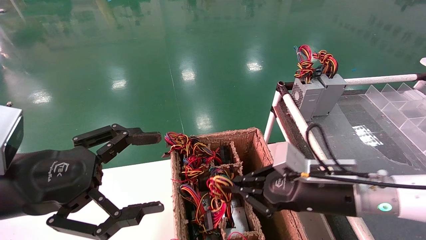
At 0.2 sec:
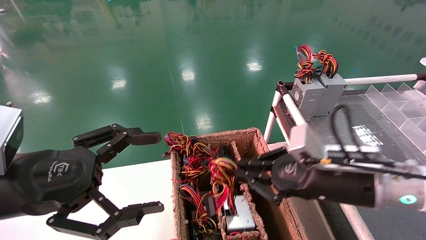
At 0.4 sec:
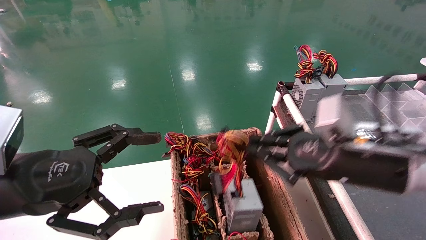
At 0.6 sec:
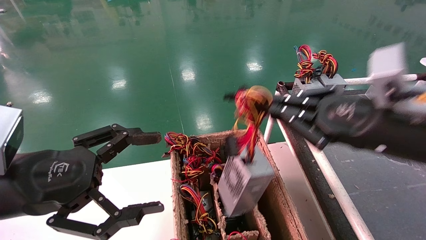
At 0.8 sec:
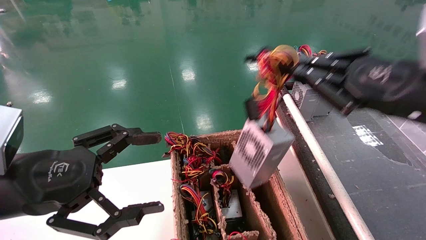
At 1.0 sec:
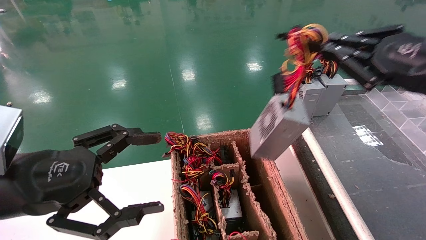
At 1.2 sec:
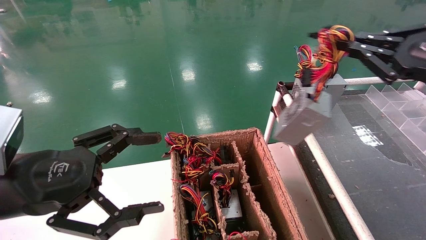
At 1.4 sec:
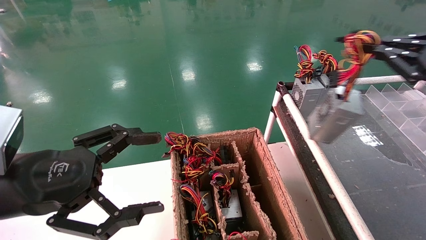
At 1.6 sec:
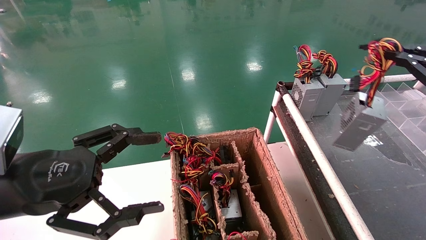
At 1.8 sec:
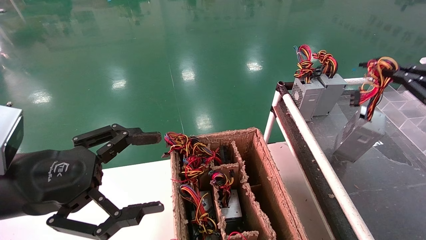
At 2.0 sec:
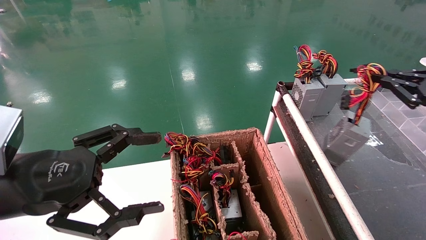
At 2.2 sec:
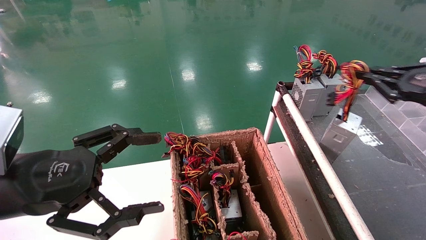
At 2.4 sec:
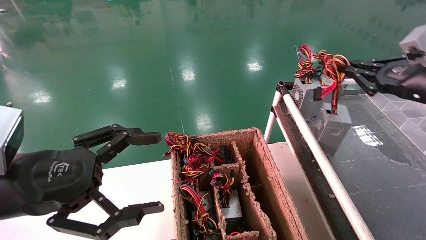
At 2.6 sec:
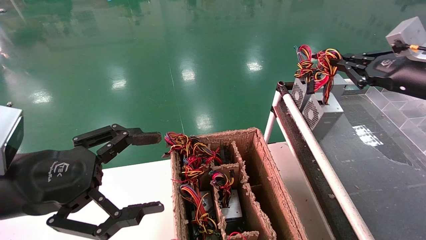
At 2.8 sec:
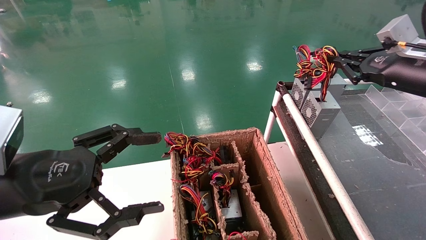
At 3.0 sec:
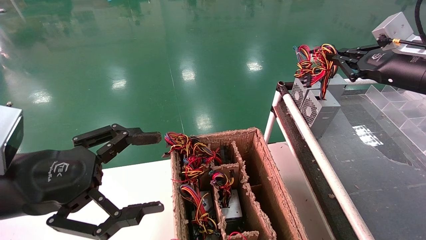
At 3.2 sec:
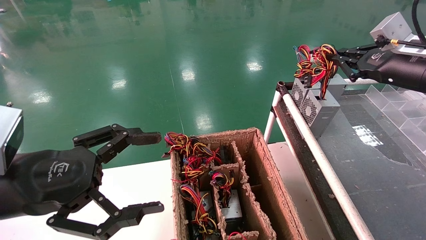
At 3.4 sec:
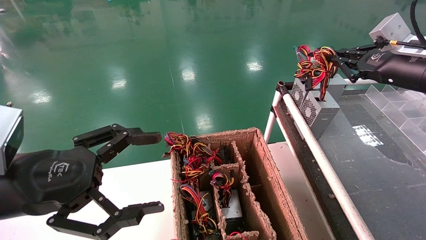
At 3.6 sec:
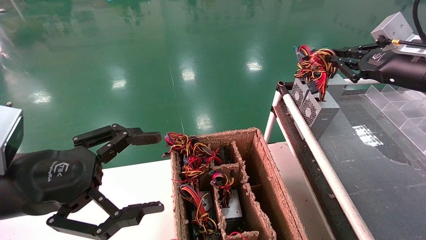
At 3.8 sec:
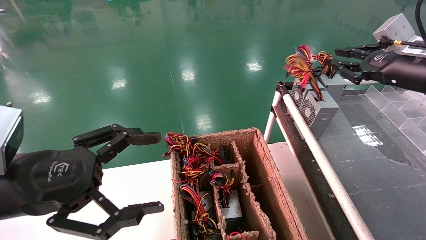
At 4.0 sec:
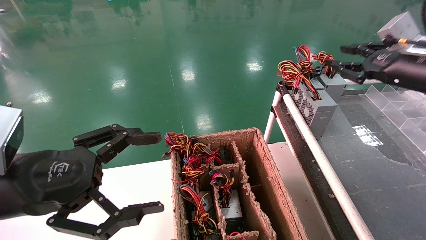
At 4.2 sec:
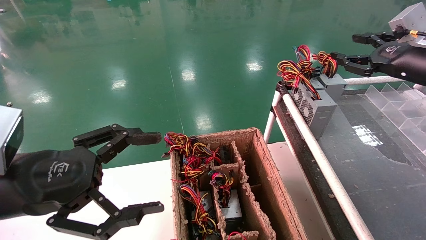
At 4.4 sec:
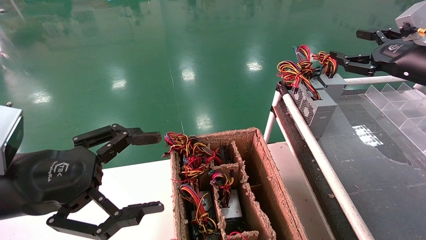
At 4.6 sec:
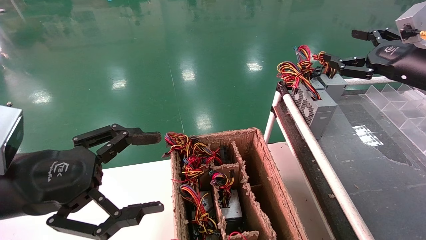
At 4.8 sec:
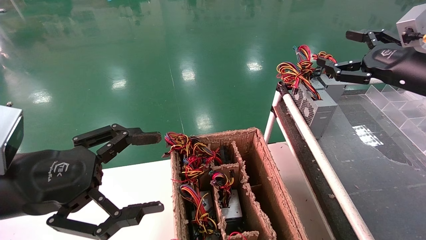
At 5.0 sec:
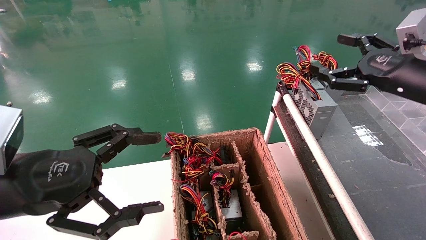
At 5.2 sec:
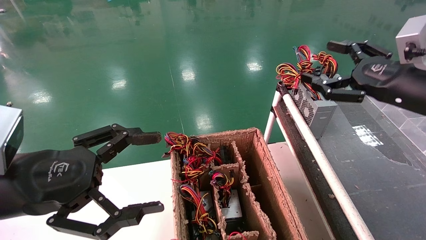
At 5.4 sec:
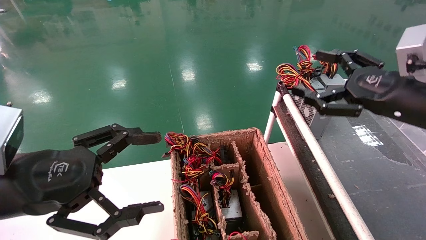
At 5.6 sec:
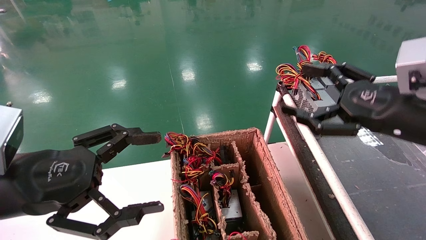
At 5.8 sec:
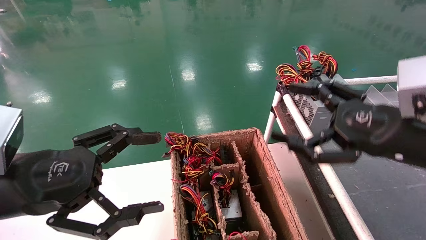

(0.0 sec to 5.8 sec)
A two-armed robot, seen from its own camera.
Step, 0.0 sec - 3.6 sec: Place the power supply on the operating table.
0.0 sec - 1.4 sec: The right gripper heads to the right and upward, covering approximately 25 cm.
1.4 sec - 2.8 sec: The right gripper shifts roughly 10 cm forward.
2.8 sec - 4.4 sec: The right gripper opens up.
4.4 sec - 5.8 sec: The right gripper goes about 15 cm backward, to the left and downward, and opens its fingers.

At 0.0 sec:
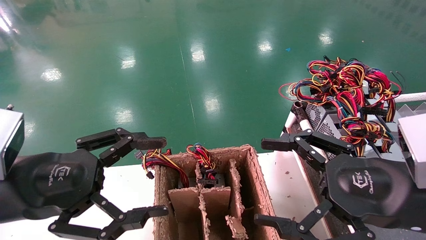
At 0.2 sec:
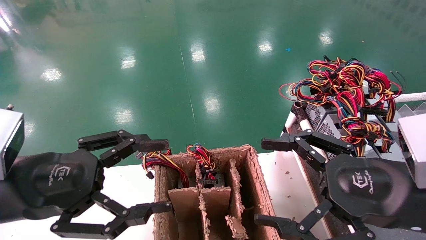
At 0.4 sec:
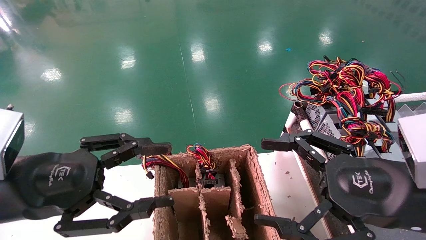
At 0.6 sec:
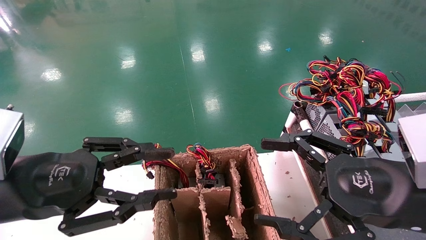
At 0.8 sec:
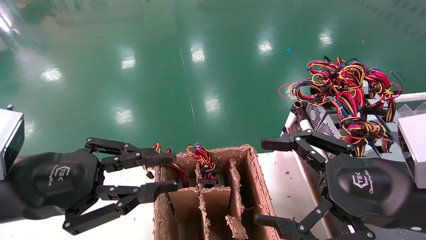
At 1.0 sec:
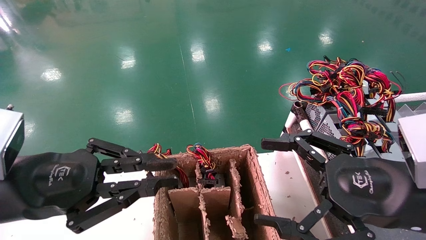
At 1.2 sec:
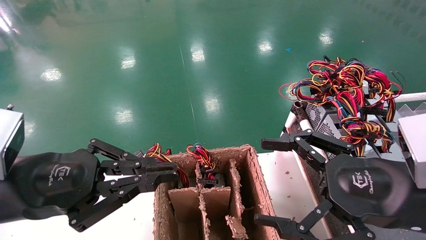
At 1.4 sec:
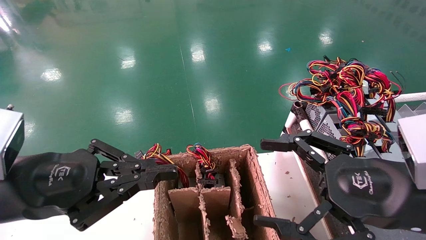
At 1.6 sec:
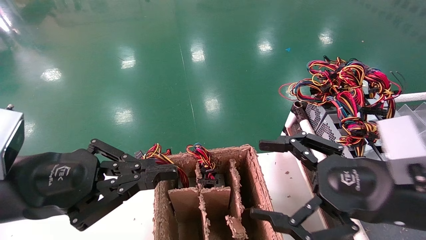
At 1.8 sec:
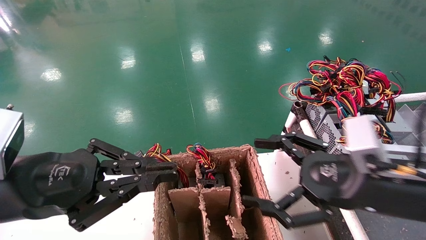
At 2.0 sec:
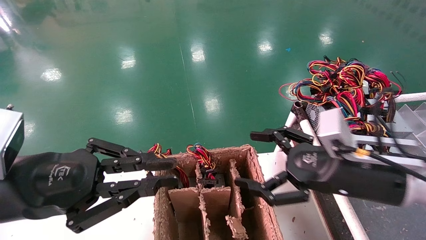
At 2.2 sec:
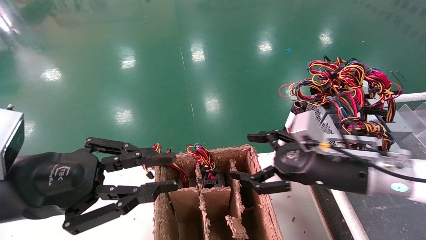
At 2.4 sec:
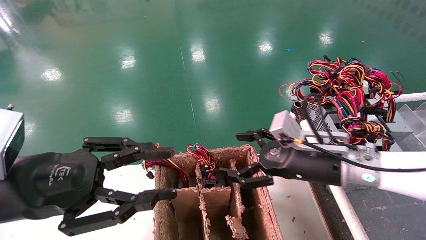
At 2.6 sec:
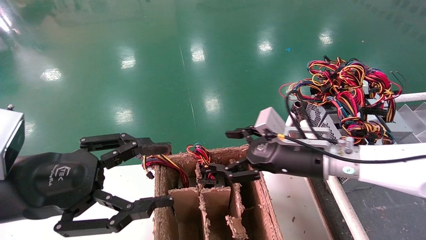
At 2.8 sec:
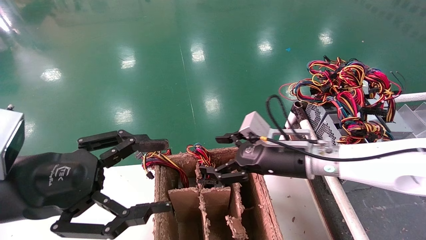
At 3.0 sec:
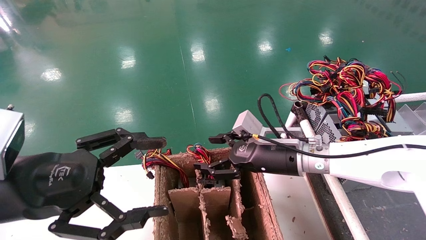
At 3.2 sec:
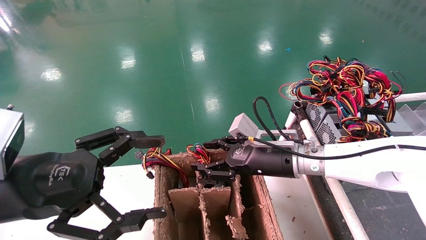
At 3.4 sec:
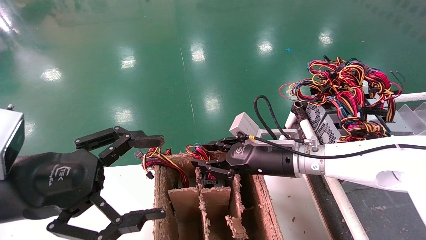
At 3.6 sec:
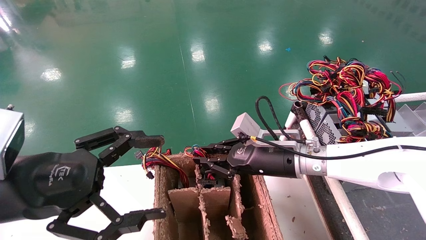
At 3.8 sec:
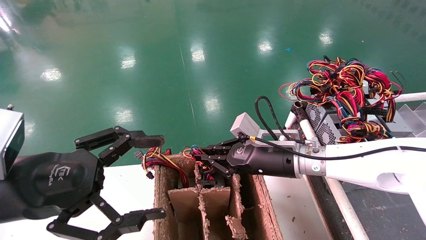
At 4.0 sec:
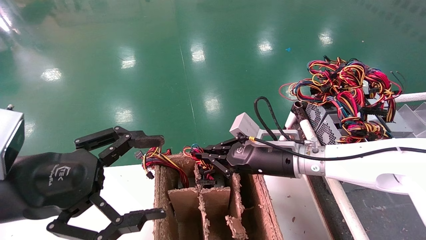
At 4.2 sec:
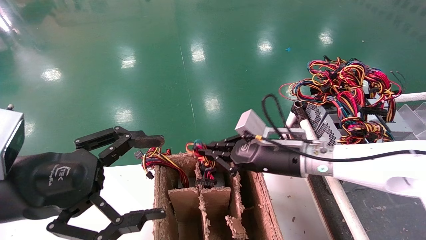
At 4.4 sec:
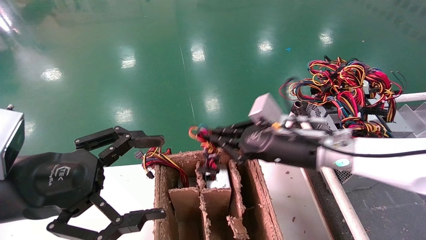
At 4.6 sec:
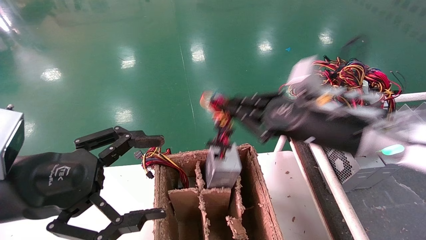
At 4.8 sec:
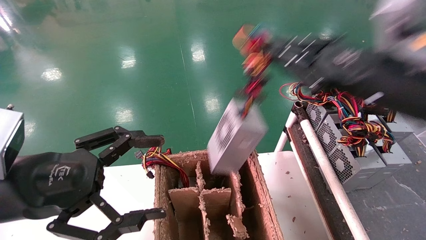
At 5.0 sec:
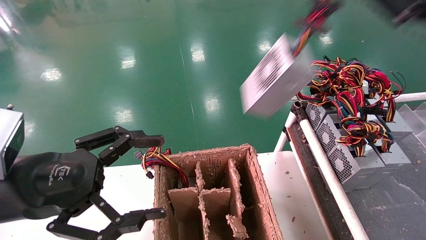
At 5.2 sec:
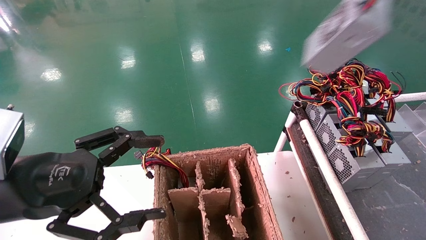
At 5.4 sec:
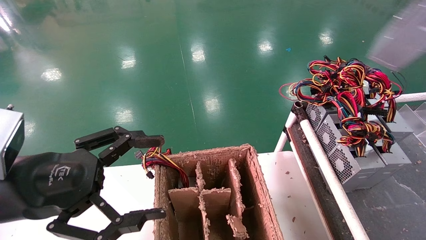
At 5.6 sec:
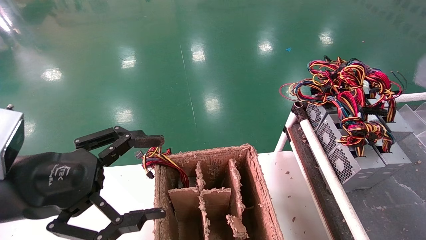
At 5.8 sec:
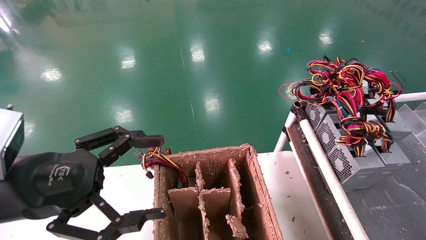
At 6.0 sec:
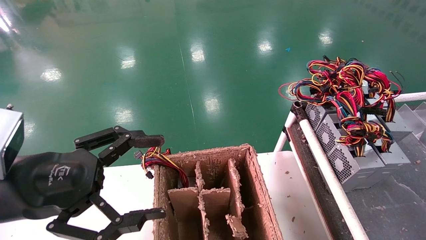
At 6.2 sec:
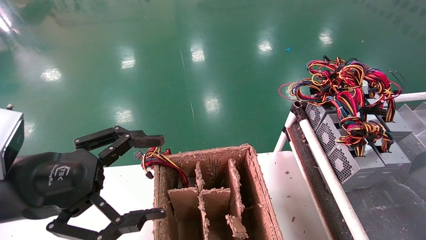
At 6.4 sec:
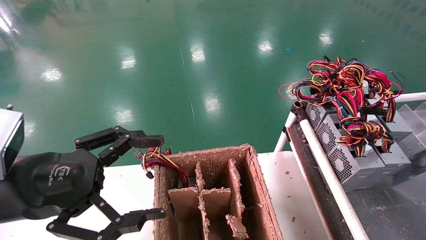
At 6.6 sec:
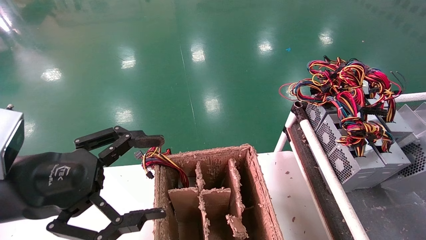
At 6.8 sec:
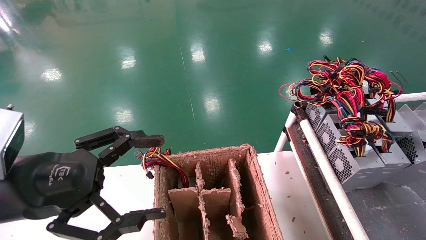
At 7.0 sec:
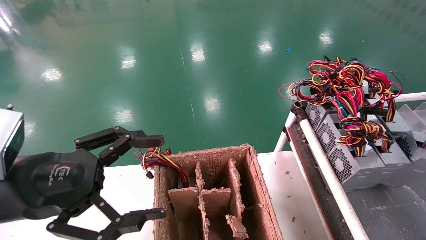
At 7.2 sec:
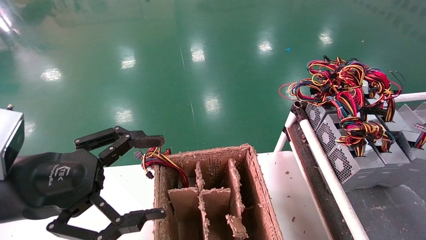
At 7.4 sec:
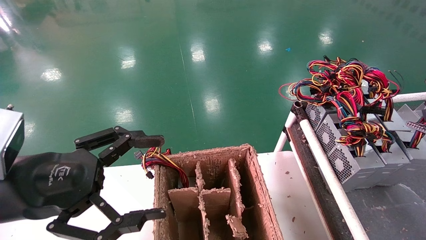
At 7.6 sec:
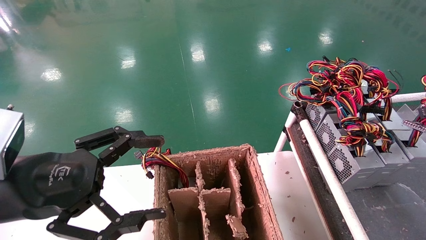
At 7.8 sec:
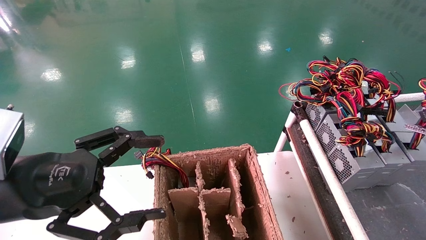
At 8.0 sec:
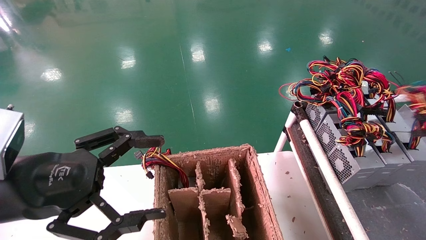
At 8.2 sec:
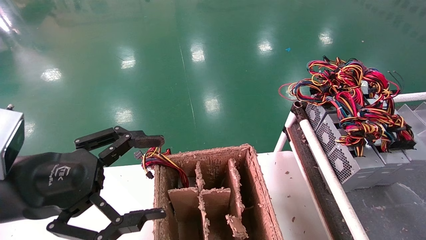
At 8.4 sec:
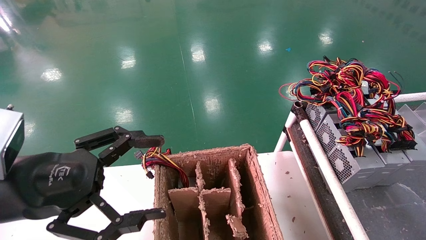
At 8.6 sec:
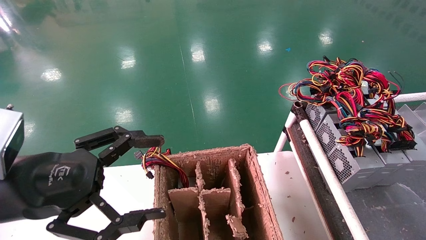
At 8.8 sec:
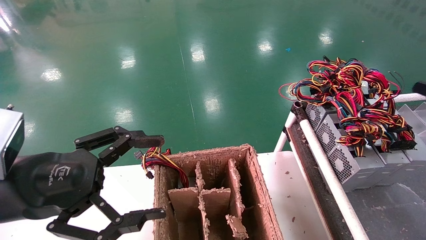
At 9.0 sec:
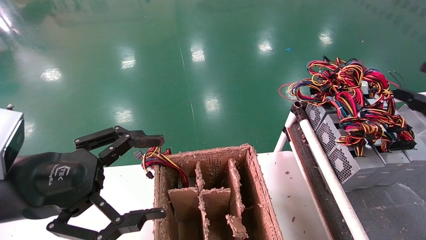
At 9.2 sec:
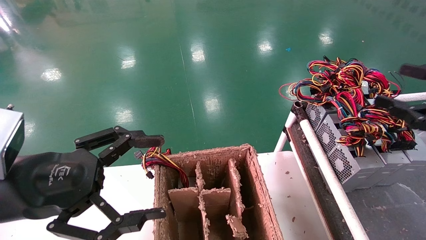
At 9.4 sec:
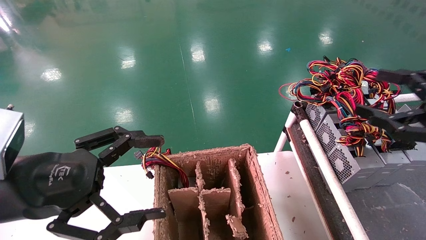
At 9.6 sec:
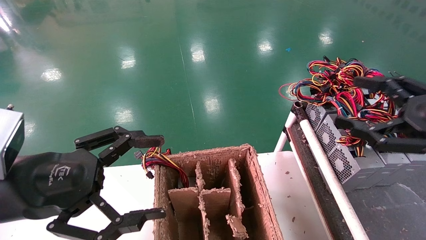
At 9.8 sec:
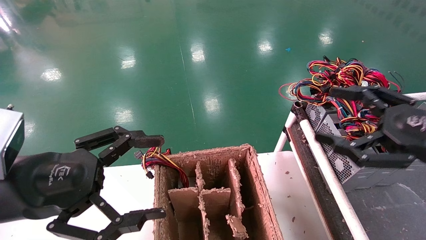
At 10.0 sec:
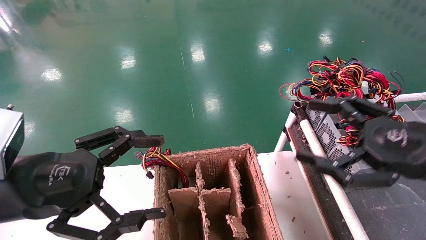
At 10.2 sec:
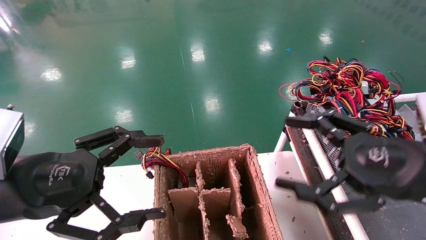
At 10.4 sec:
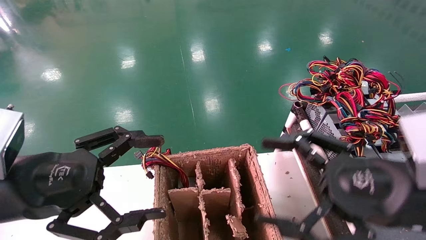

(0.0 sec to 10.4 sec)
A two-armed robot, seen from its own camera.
Step, 1.8 sec - 3.8 sec: Grab and lift the power supply from the large box.
Step, 4.0 sec - 8.4 sec: Place the power supply on the operating table.
0.0 sec - 1.4 sec: The left gripper closes.
1.4 sec - 3.0 sec: The left gripper opens its fingers. Meanwhile the right gripper heads forward and to the left, covering about 20 cm.
3.0 sec - 4.4 sec: The right gripper travels upward by about 5 cm, and closes.
4.4 sec - 6.0 sec: The right gripper heads to the right and backward, covering approximately 50 cm.
6.0 sec - 7.4 sec: The right gripper shifts approximately 10 cm forward and downward.
7.4 sec - 9.0 sec: The right gripper shifts approximately 5 cm to the left, and opens its fingers.
9.0 sec - 10.4 sec: The right gripper travels to the left by about 20 cm.
